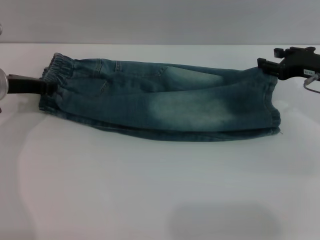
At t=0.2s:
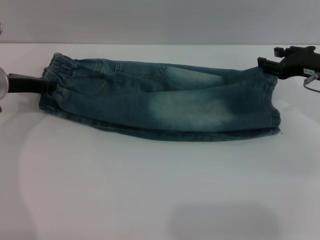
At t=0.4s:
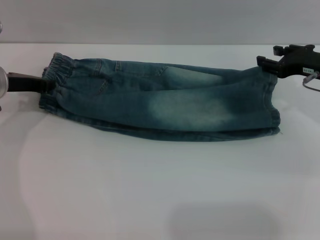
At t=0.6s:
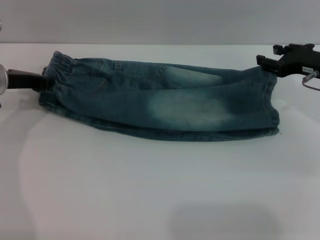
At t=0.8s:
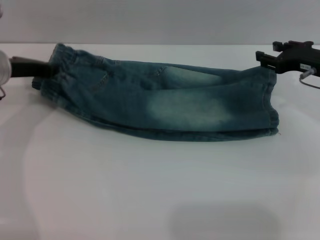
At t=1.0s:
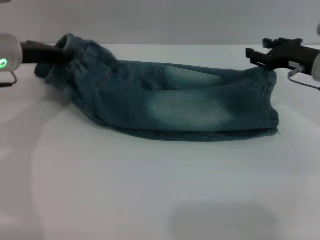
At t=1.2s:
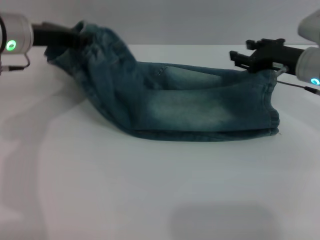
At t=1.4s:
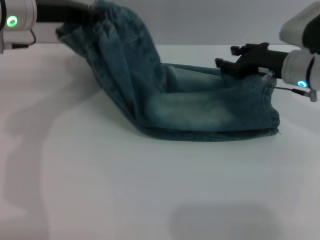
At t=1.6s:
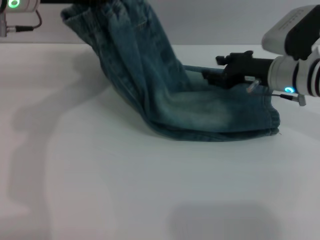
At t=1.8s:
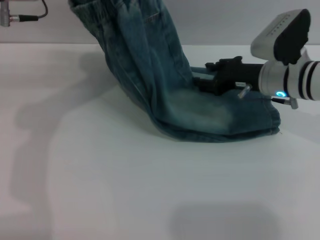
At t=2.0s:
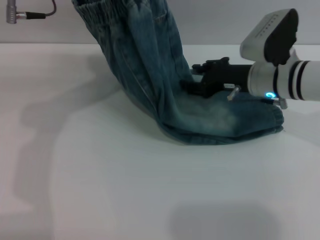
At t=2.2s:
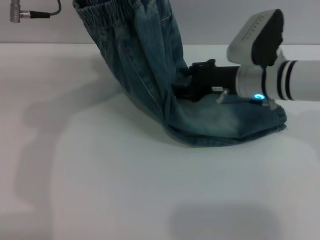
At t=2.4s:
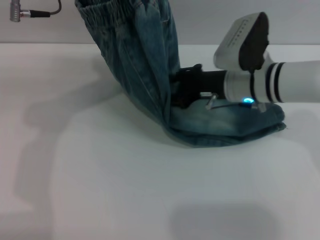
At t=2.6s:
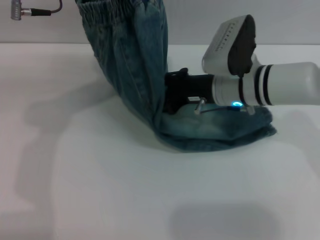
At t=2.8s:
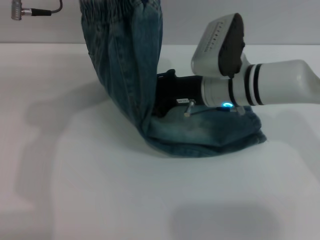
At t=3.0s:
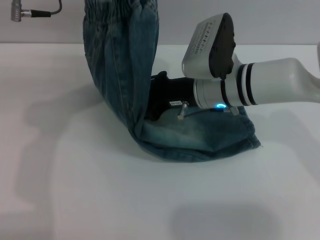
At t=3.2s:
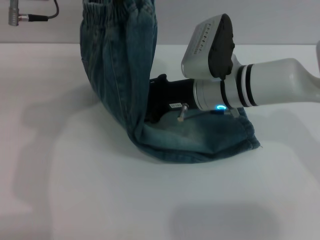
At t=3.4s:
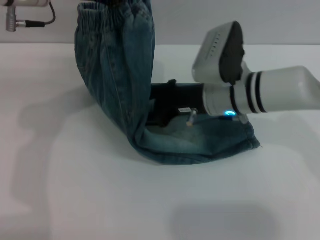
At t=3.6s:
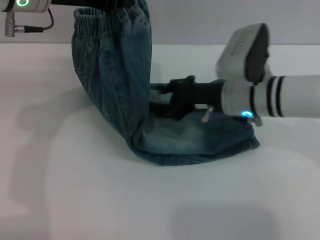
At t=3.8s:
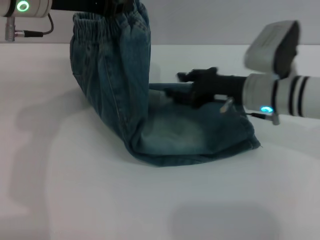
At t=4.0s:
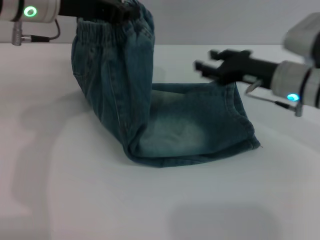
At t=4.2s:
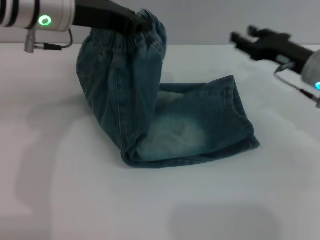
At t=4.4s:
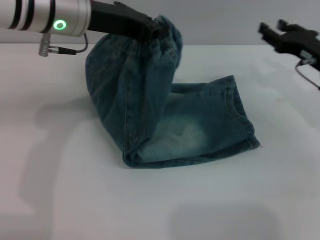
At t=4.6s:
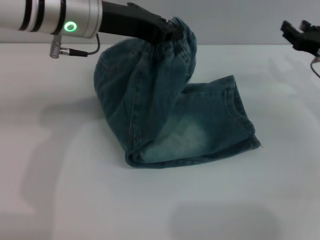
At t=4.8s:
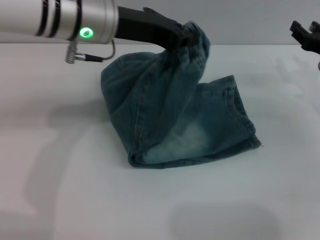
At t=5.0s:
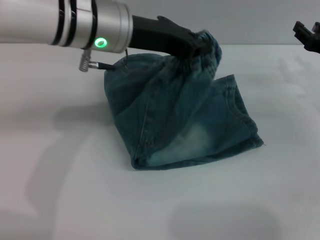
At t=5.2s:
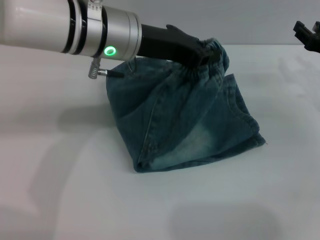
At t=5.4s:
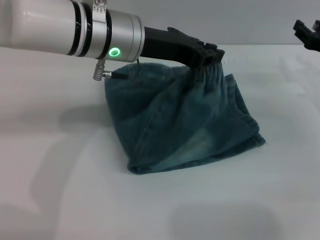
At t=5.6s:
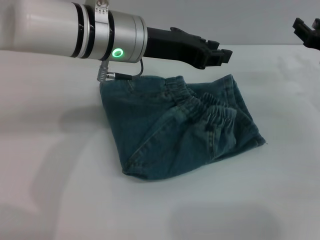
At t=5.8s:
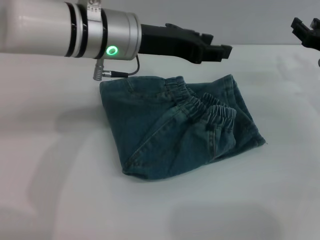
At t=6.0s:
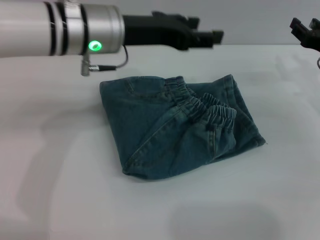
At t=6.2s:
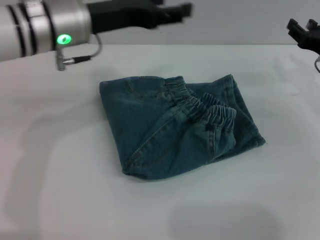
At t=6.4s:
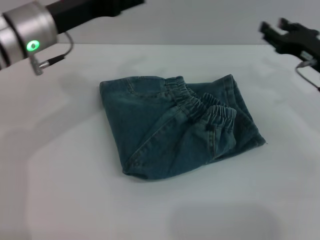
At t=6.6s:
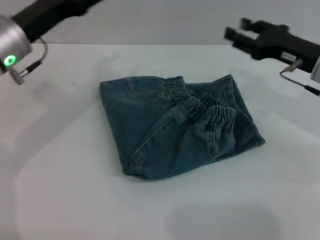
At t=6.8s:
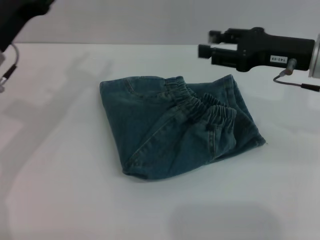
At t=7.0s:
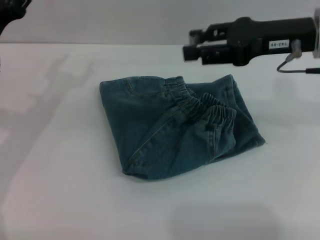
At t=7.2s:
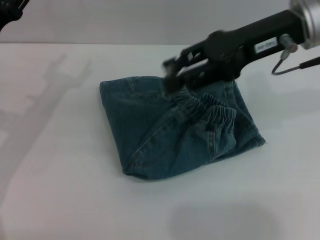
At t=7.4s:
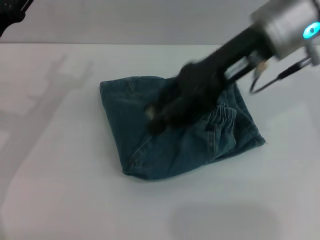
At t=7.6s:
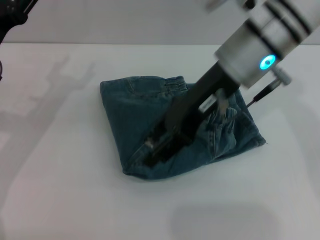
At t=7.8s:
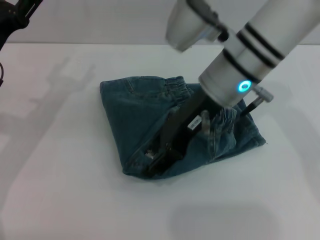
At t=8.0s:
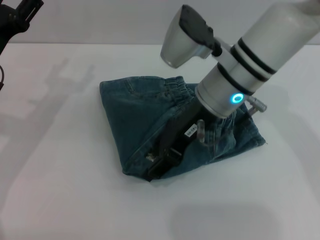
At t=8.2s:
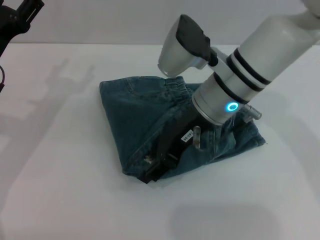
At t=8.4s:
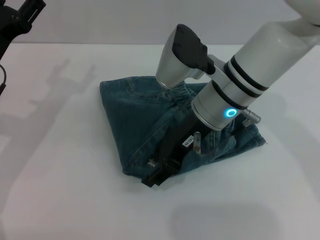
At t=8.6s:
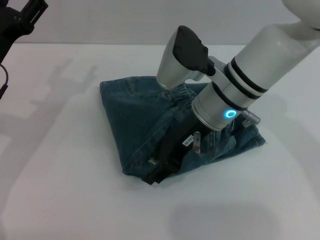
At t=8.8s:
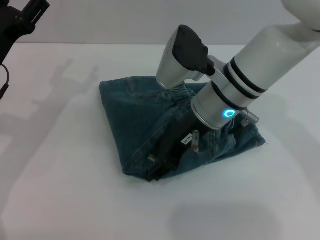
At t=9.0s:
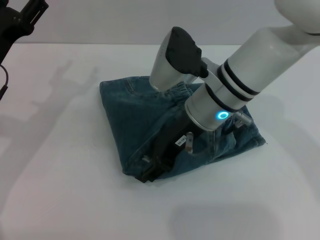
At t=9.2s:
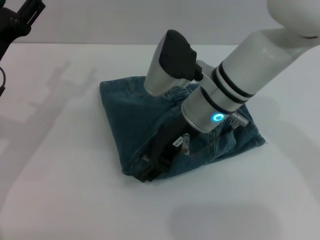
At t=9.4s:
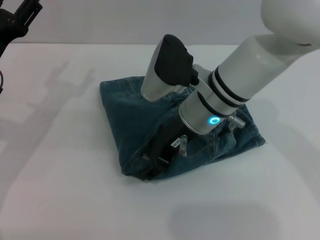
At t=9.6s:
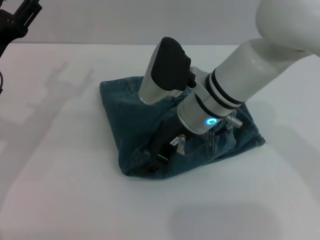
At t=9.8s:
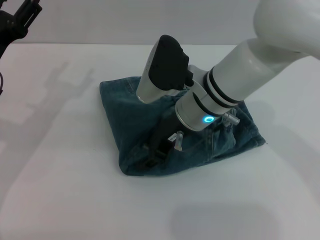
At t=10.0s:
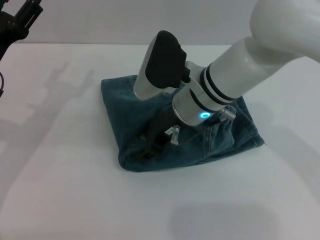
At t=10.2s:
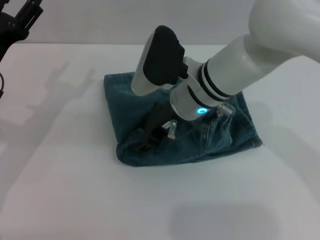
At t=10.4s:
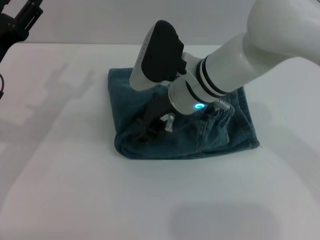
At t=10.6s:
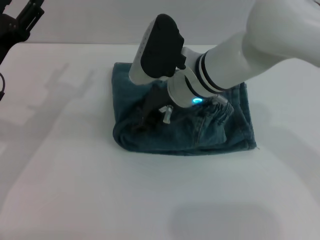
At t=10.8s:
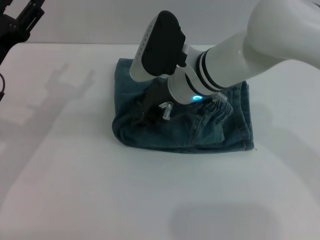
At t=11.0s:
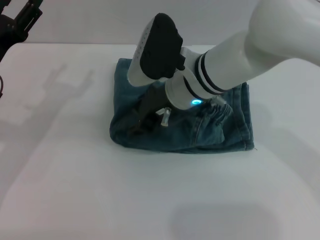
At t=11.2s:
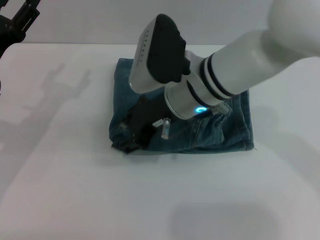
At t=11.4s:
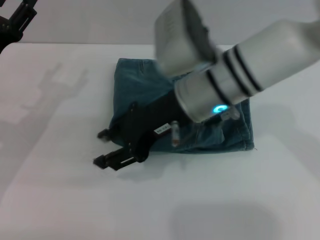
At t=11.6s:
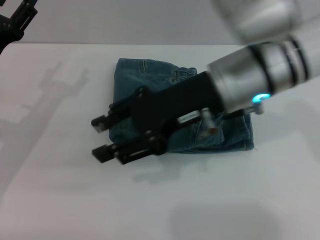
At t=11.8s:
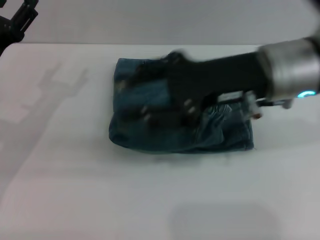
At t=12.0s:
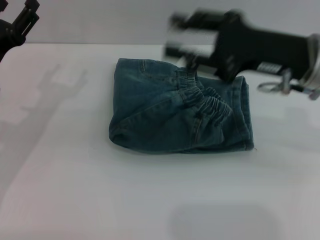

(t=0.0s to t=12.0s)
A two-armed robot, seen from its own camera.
Step, t=0.0s - t=5.8s: Fold the pants from left to right with the left gripper.
Step, t=6.0s - t=11.2s: Place the folded trousers onto the center area with the right grippers.
t=0.0s - t=1.6s: The right gripper travels to the left by approximately 10 cm. The left gripper shifts some 15 cm upward and to the right.
t=1.6s - t=3.0s: The right gripper is displaced to the left by roughly 10 cm.
t=3.0s - t=4.4s: The right gripper moves to the right, about 20 cm.
t=4.4s - t=6.0s: The left gripper opens up.
t=6.0s - t=7.6s: The left gripper is displaced to the left and downward by roughly 20 cm, while the right gripper travels to the left and upward by some 25 cm.
t=7.6s - t=9.0s: The right gripper travels downward by some 10 cm.
t=9.0s - t=10.4s: There are only small adjustments of the grippers.
t=10.4s - t=12.0s: The right gripper shifts some 15 cm to the right and upward.

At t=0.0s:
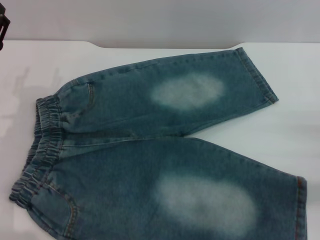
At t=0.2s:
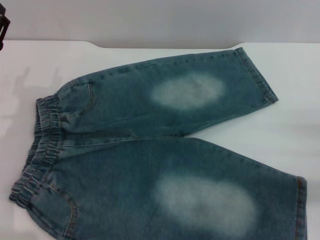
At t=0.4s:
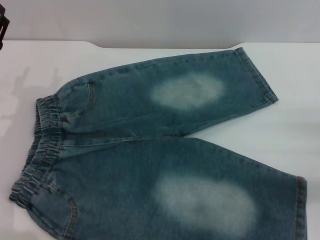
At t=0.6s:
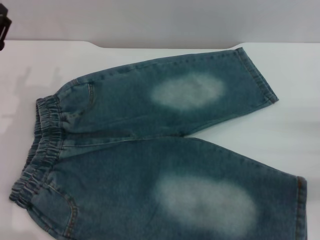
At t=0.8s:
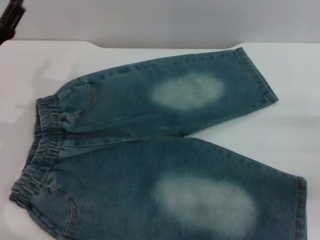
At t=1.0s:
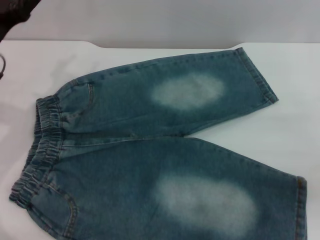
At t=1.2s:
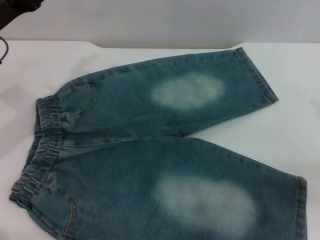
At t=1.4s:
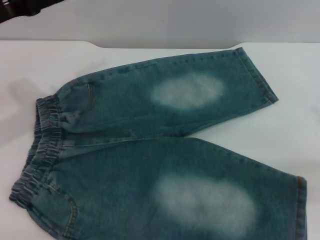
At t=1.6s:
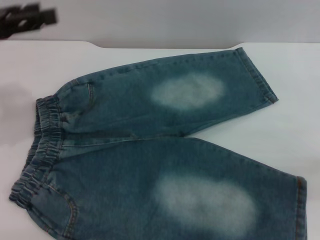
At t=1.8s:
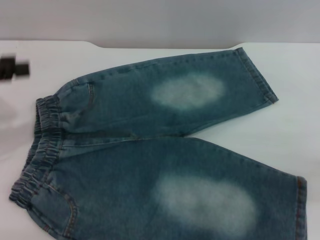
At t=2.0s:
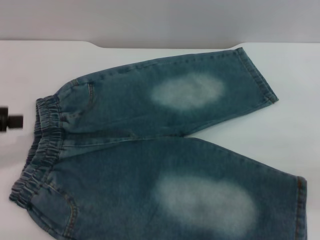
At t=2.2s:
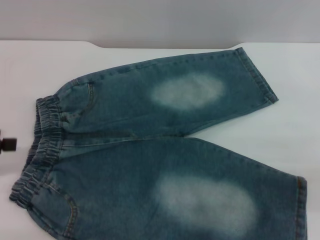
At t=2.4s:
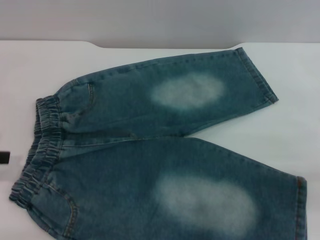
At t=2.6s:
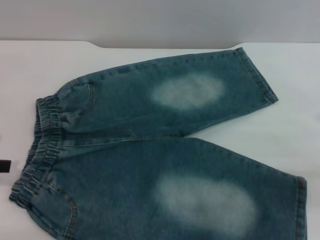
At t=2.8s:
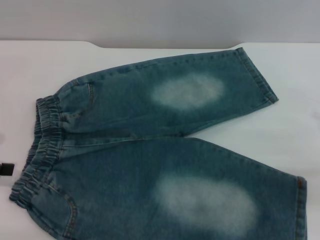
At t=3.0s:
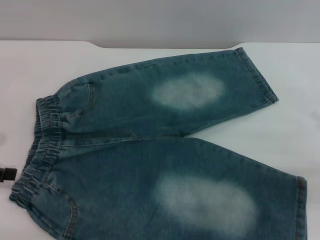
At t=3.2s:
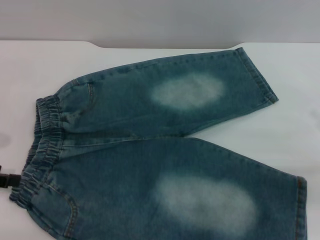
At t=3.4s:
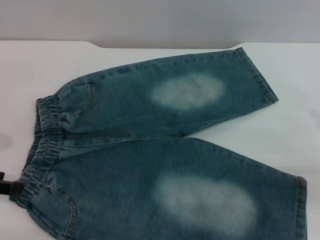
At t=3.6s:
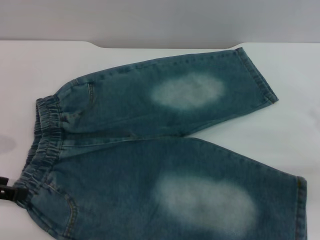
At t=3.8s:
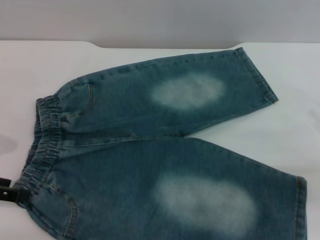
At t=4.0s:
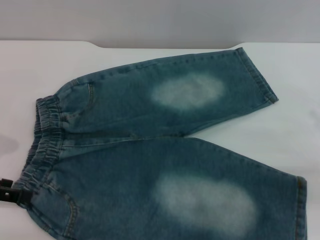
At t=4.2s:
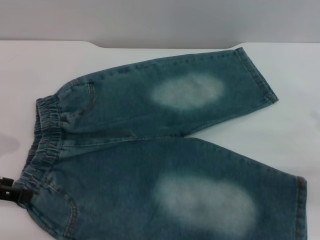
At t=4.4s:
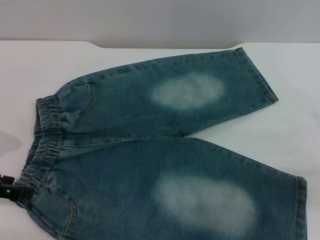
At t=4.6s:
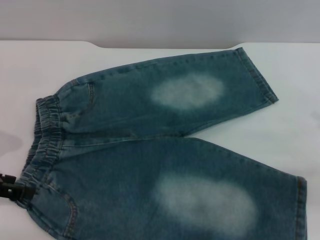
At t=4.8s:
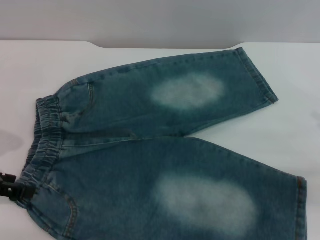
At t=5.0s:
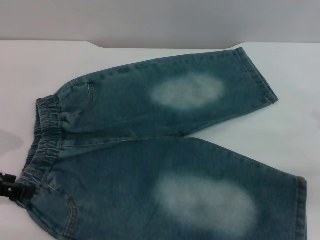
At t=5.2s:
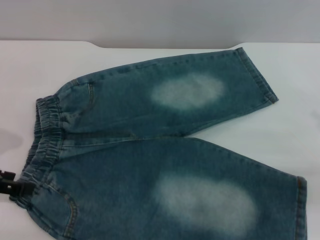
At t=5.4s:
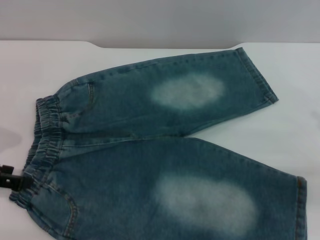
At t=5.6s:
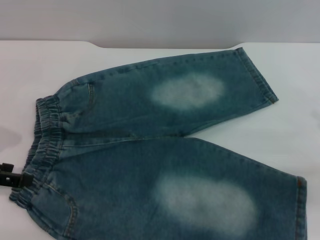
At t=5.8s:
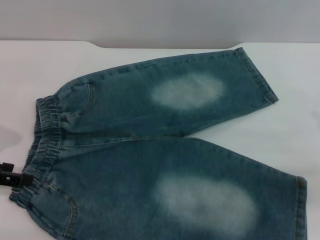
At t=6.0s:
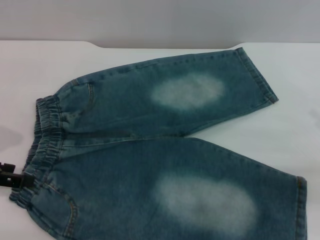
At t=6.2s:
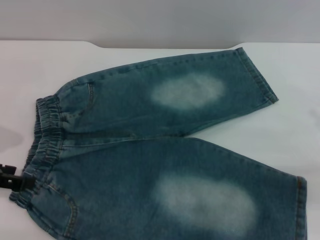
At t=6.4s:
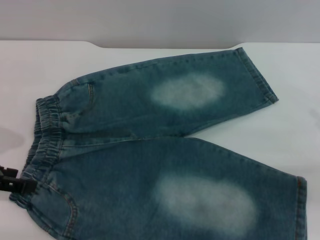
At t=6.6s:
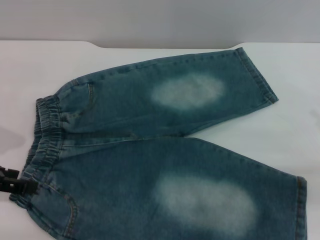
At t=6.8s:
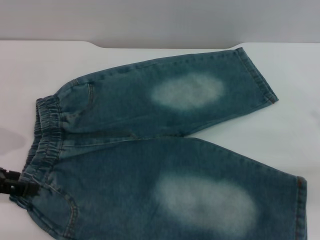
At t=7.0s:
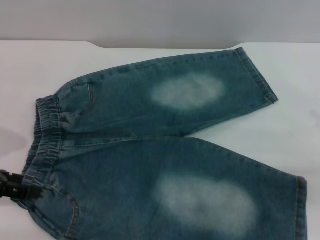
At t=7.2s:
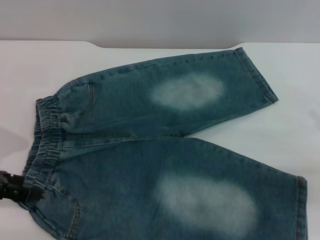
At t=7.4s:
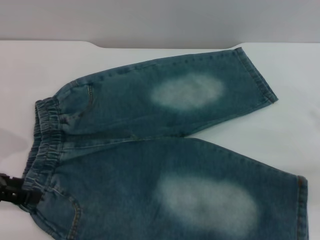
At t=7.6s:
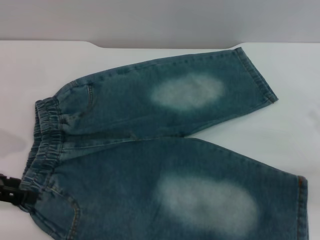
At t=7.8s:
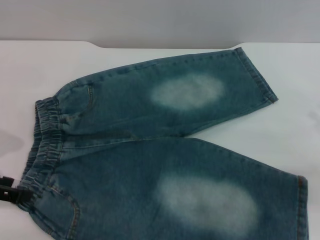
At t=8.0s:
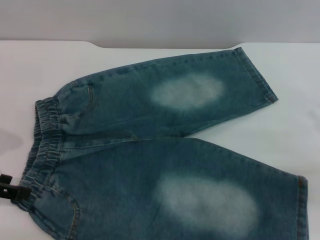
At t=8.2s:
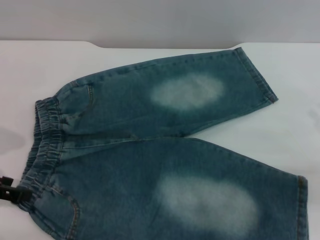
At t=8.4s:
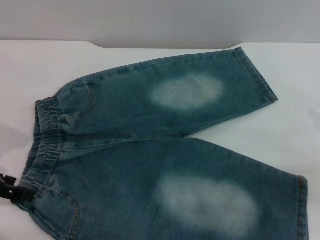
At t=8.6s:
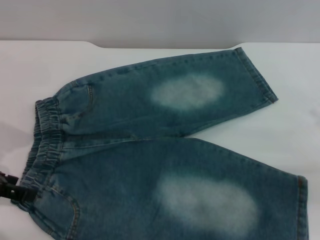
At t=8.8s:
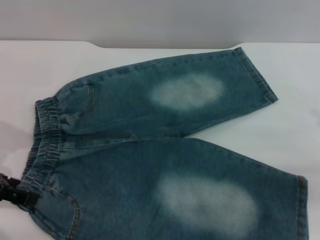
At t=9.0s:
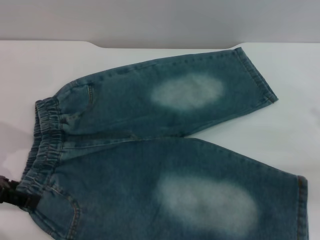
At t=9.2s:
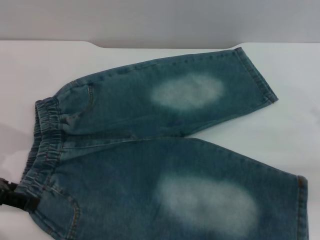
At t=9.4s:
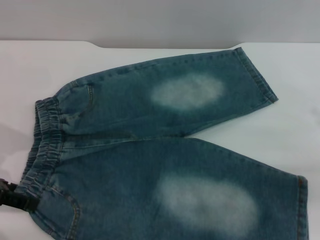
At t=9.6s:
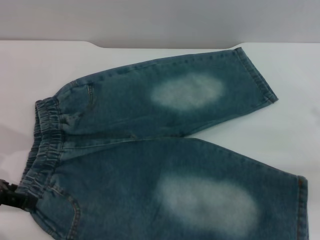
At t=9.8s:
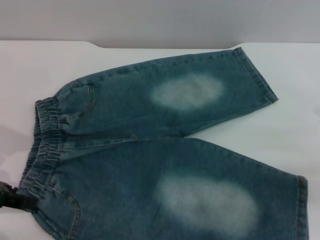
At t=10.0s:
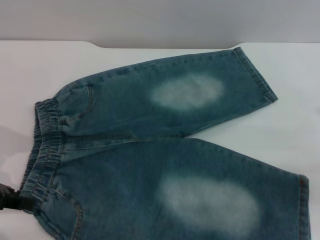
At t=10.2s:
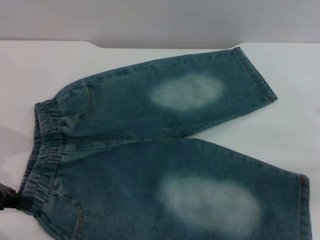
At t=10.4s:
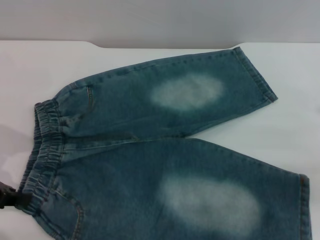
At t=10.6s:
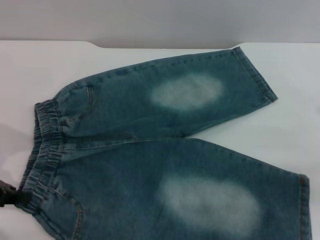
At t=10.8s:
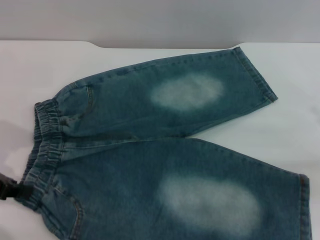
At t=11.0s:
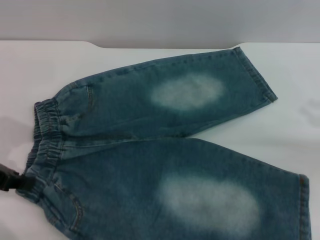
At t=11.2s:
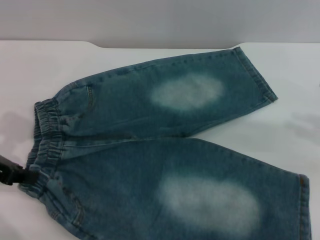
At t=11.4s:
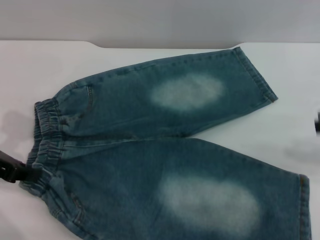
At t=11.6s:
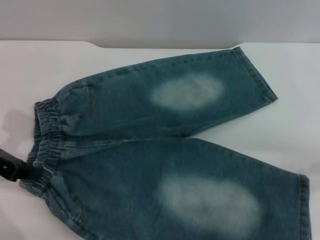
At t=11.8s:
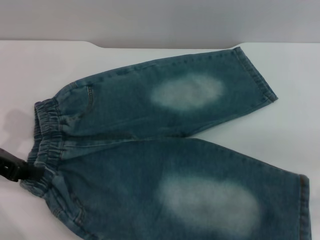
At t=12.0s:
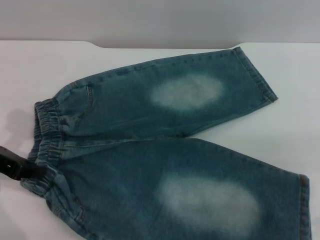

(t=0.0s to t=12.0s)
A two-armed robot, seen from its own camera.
t=0.0s - t=1.6s: The left gripper goes about 15 cm upward.
t=1.6s - t=3.0s: The left gripper goes some 10 cm downward, backward and to the left.
t=4.4s - t=6.0s: Neither gripper changes place.
t=6.0s - t=7.6s: The grippers make only small movements.
t=9.0s - t=10.4s: The left gripper closes its fingers.
